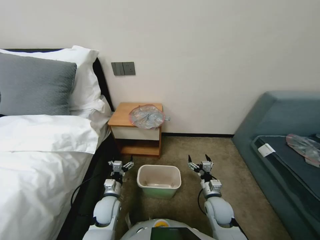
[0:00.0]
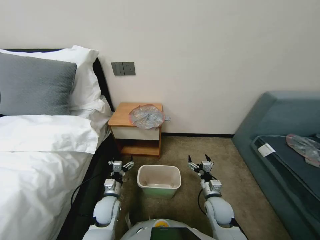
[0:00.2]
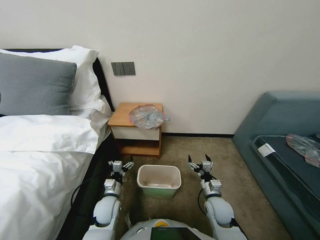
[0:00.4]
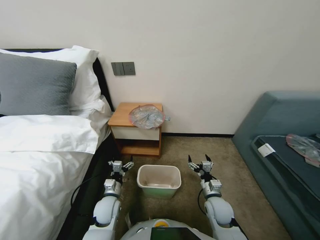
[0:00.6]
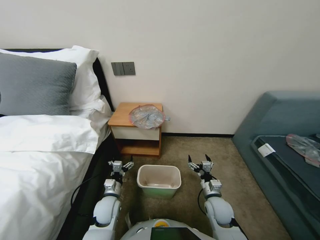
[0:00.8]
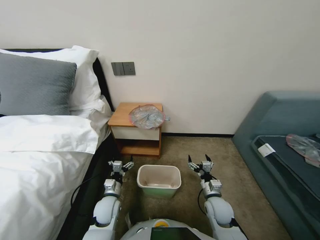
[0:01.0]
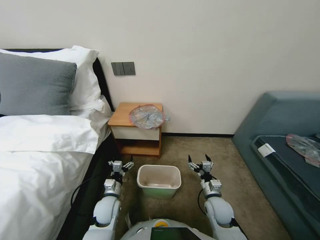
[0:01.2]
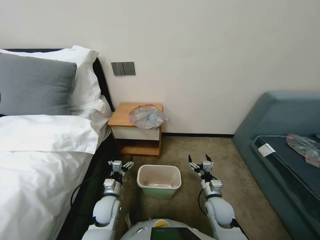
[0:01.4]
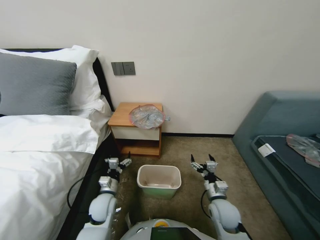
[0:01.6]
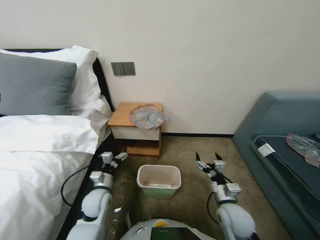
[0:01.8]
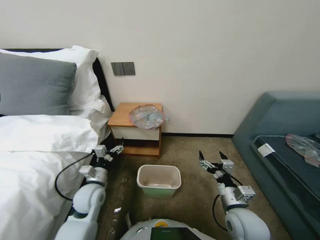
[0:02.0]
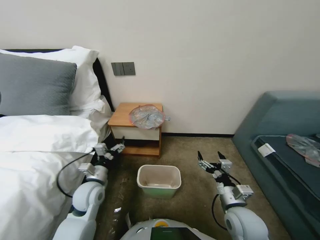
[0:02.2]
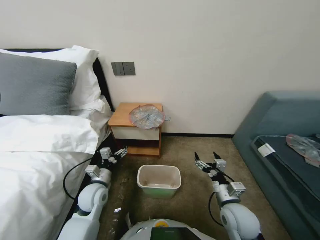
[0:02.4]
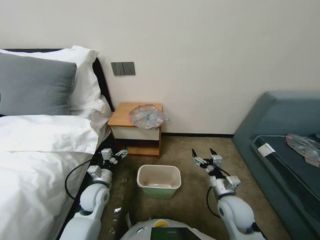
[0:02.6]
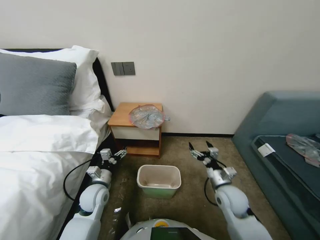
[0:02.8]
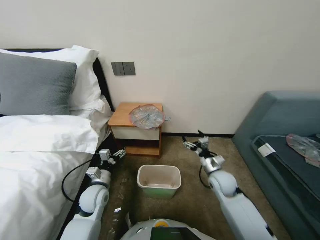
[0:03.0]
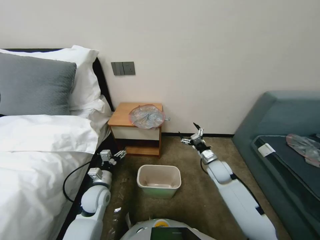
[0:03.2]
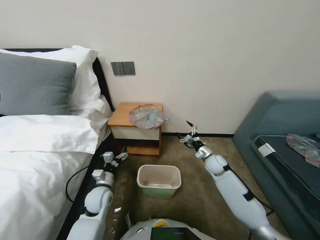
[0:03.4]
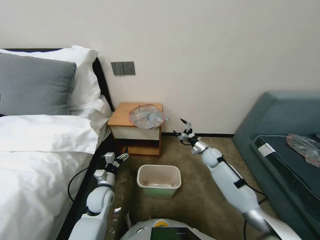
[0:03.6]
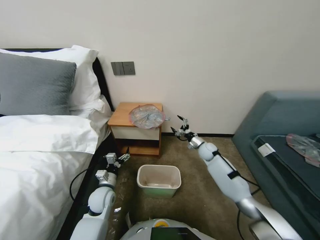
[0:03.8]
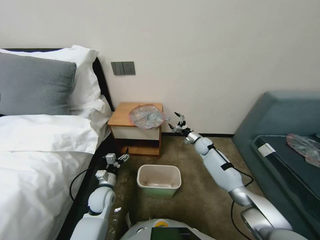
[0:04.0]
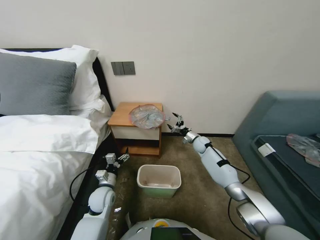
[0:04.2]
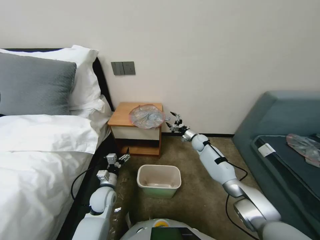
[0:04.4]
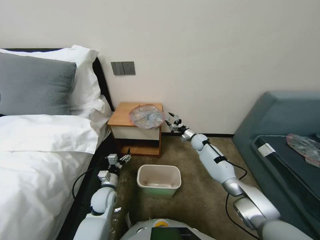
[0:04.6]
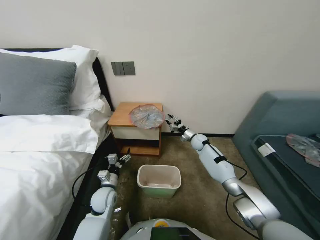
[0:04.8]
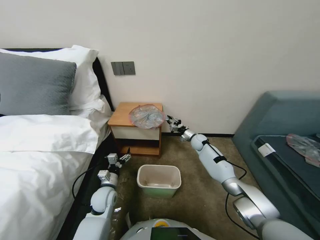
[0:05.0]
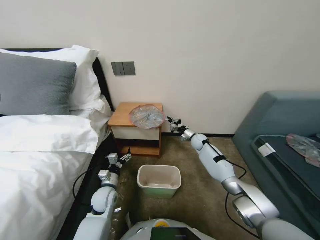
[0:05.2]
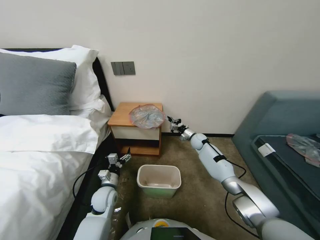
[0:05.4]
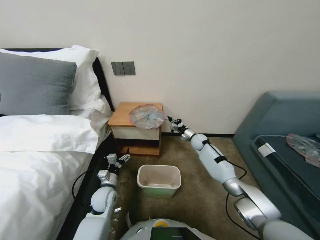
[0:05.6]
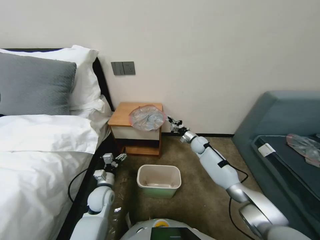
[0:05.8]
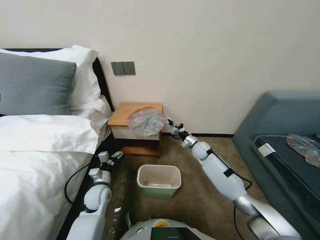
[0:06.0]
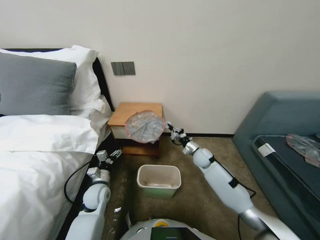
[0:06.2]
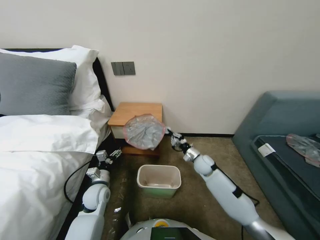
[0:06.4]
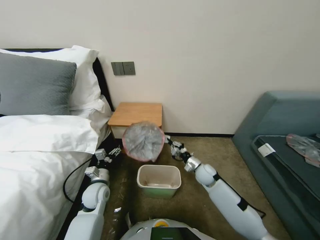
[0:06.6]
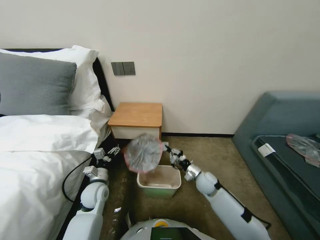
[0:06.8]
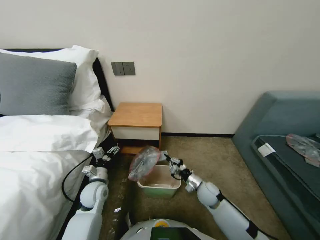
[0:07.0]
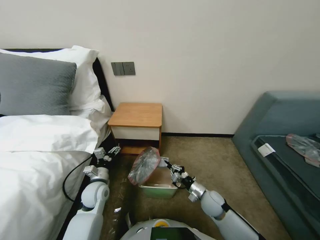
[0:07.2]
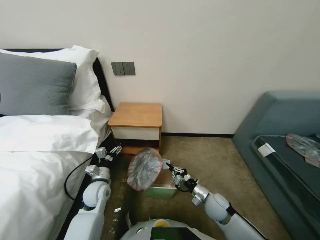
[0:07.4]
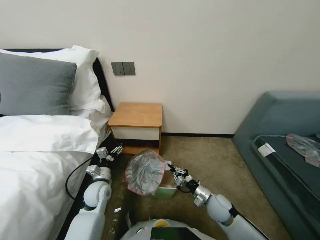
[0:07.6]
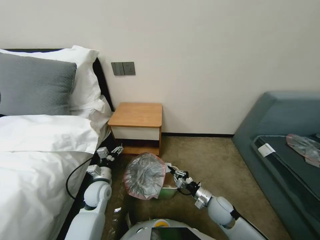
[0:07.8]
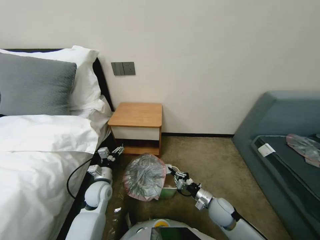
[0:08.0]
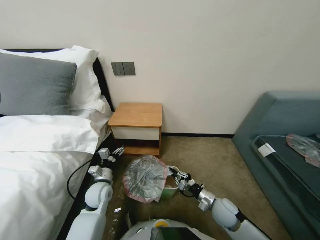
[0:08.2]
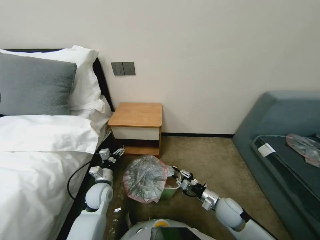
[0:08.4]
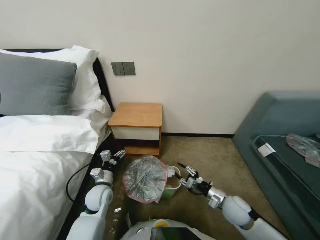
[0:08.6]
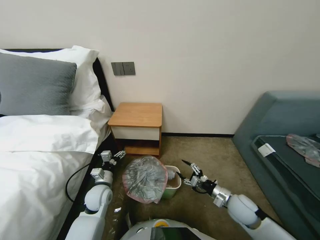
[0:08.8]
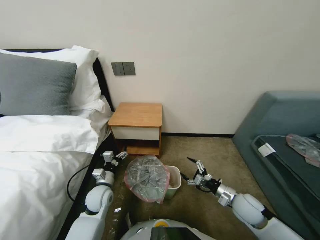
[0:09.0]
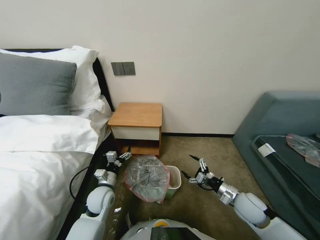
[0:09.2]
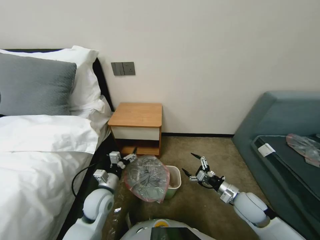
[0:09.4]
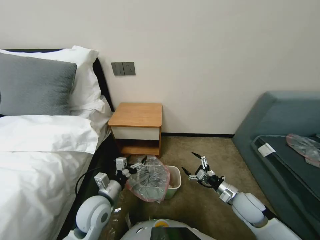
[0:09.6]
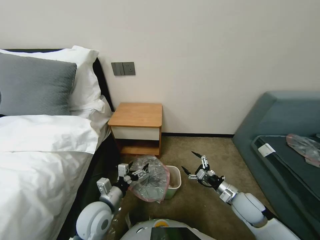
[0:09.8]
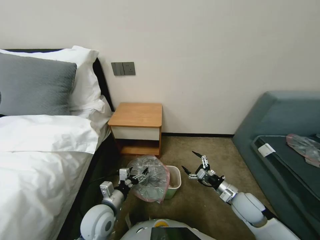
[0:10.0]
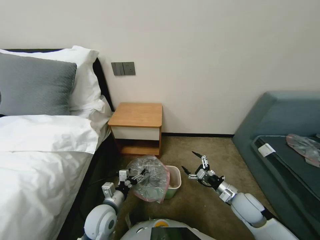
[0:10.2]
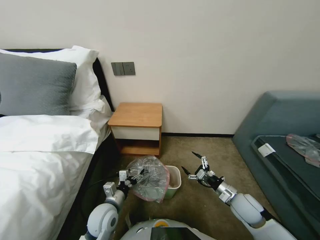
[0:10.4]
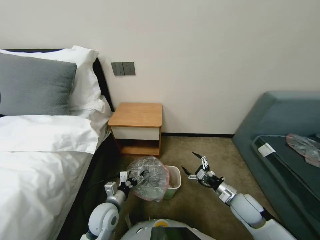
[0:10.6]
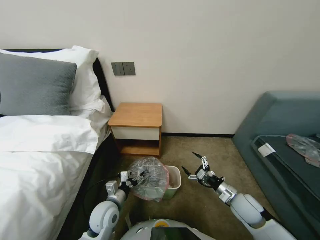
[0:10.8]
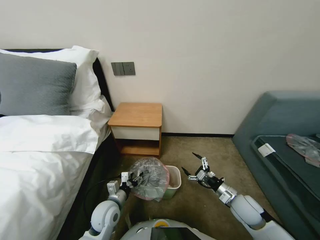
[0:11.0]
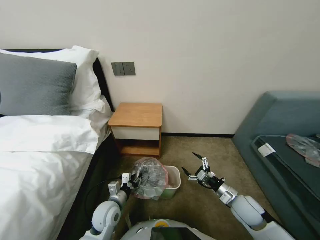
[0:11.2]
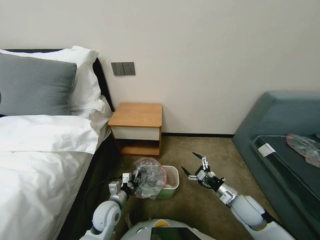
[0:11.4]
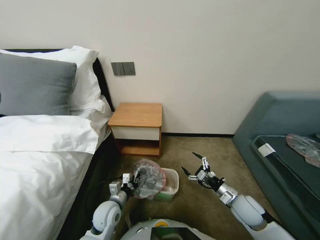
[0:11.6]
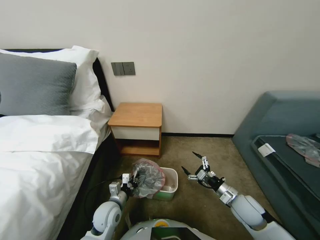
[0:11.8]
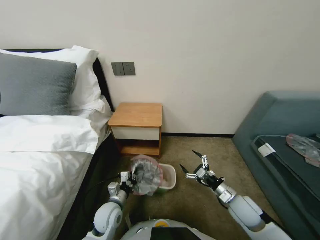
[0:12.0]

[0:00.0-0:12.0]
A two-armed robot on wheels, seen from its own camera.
Task of the whole recording: Pick up the garbage bag from the table and place it over the trash can.
0:01.6 to 0:03.0: The right gripper goes roughly 10 cm upward and forward, while the left gripper heads upward, covering roughly 5 cm.
0:03.0 to 0:04.4: The right gripper is displaced forward by roughly 30 cm.
0:04.4 to 0:06.0: The right gripper closes.
0:06.0 to 0:07.6: The right gripper travels backward by about 30 cm.
0:07.6 to 0:09.0: The right gripper goes some 10 cm to the right and upward, and opens its fingers.
0:09.0 to 0:10.4: The left gripper heads backward, covering approximately 10 cm.
0:10.4 to 0:12.0: The left gripper closes up.

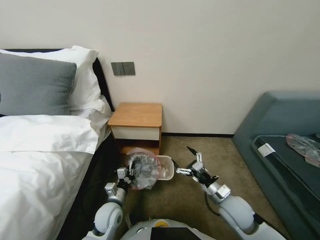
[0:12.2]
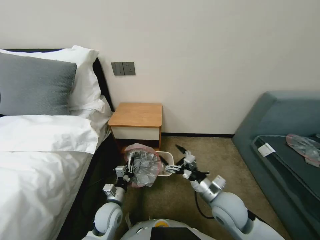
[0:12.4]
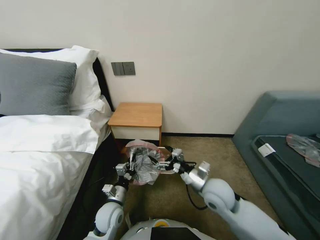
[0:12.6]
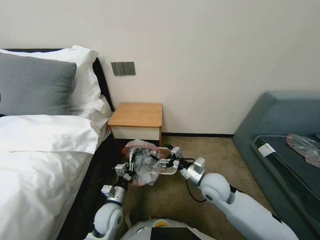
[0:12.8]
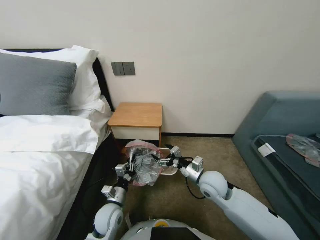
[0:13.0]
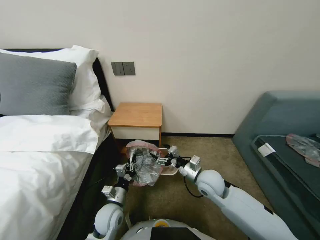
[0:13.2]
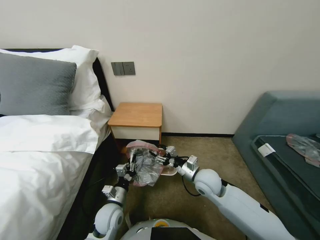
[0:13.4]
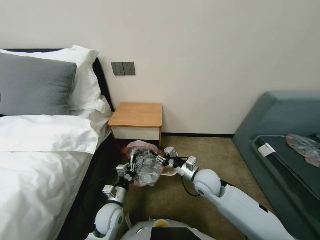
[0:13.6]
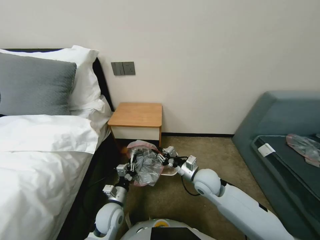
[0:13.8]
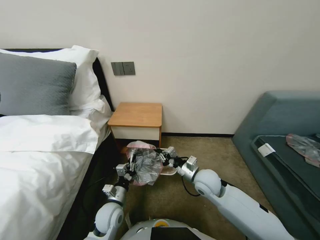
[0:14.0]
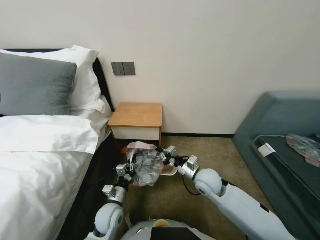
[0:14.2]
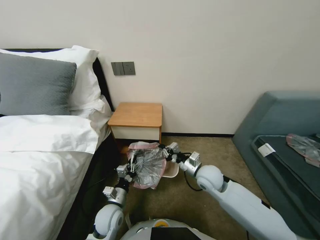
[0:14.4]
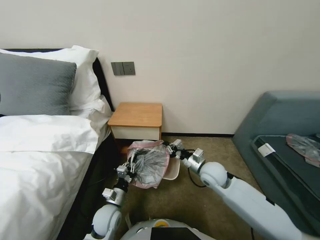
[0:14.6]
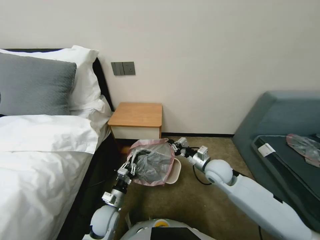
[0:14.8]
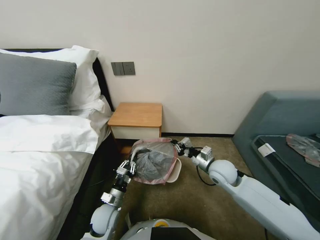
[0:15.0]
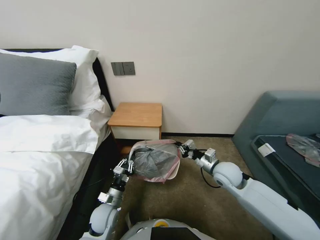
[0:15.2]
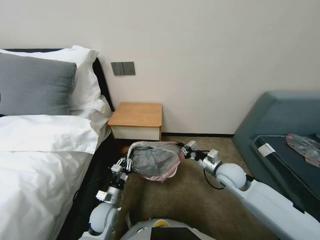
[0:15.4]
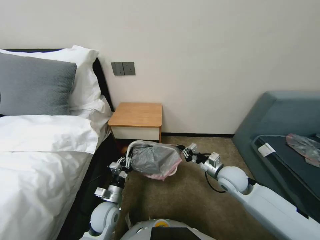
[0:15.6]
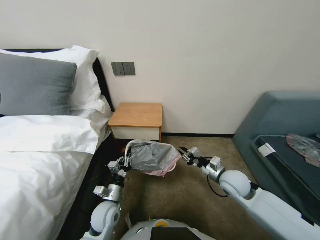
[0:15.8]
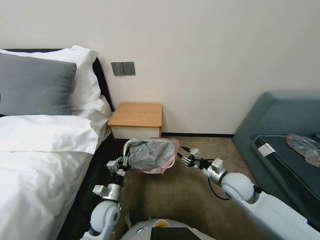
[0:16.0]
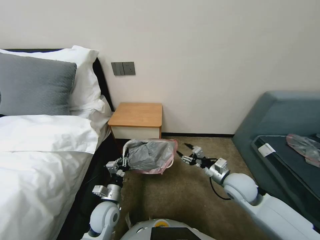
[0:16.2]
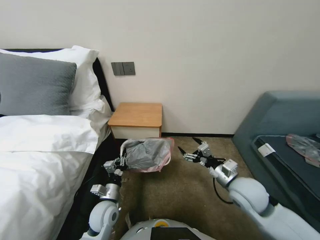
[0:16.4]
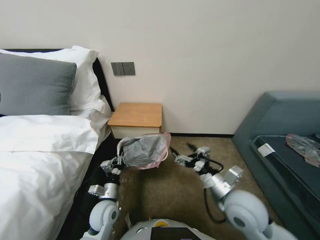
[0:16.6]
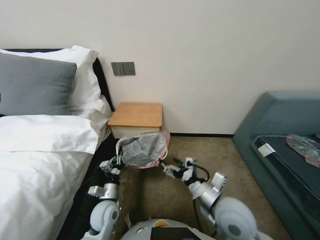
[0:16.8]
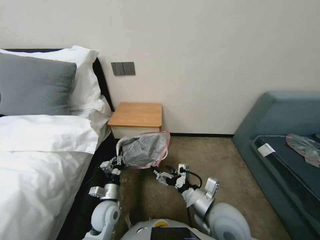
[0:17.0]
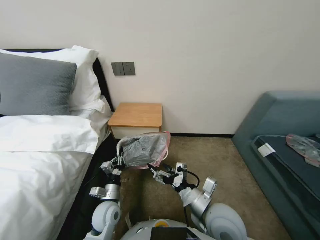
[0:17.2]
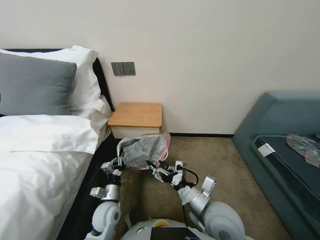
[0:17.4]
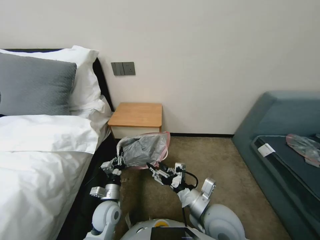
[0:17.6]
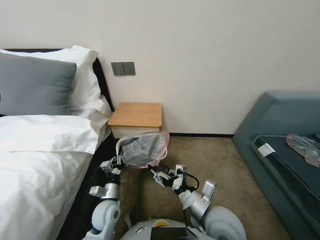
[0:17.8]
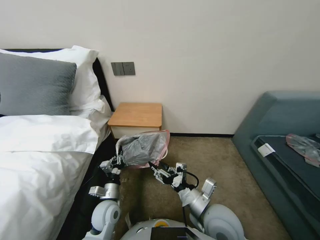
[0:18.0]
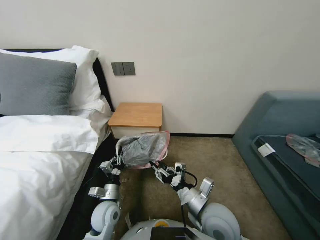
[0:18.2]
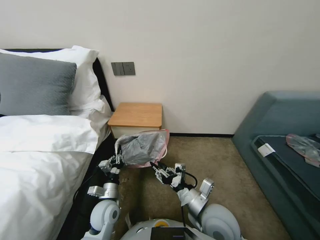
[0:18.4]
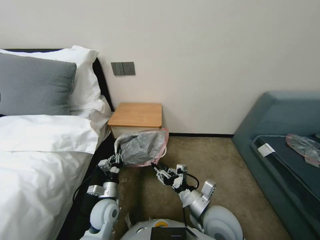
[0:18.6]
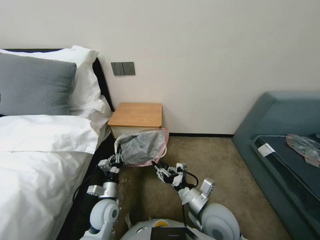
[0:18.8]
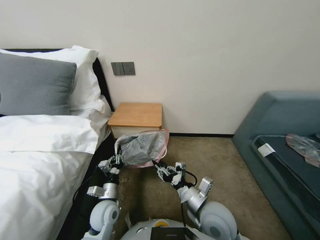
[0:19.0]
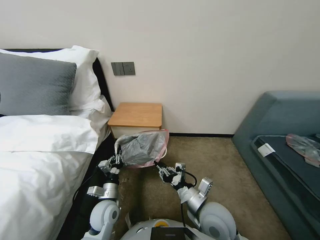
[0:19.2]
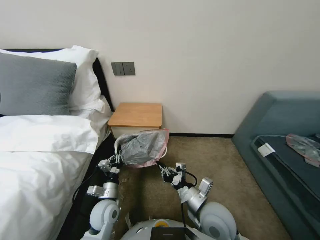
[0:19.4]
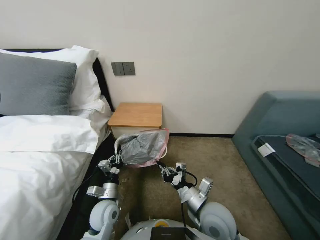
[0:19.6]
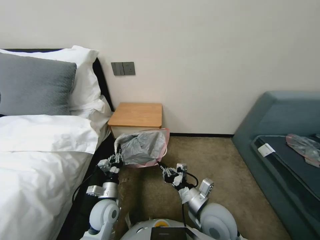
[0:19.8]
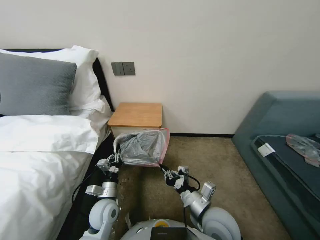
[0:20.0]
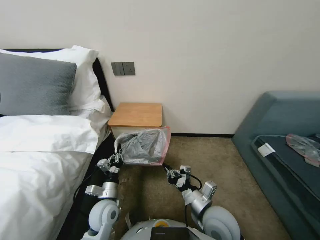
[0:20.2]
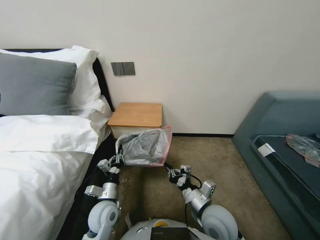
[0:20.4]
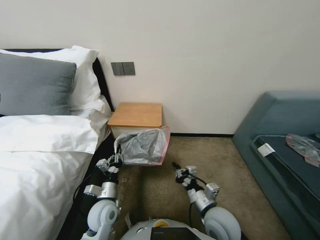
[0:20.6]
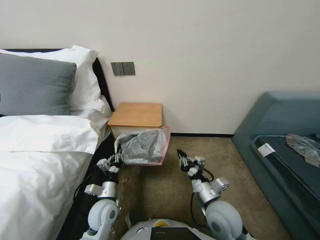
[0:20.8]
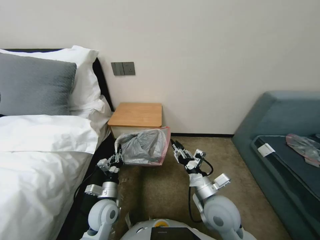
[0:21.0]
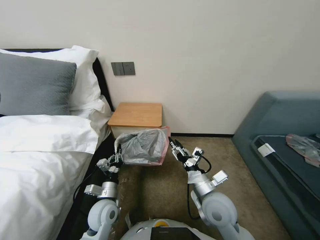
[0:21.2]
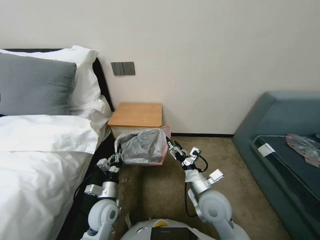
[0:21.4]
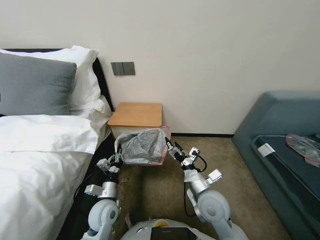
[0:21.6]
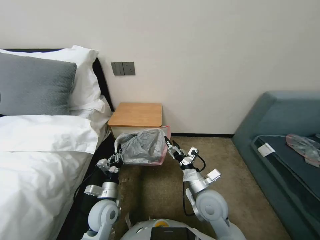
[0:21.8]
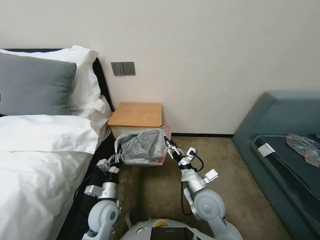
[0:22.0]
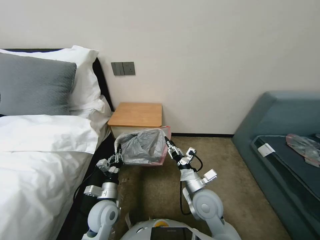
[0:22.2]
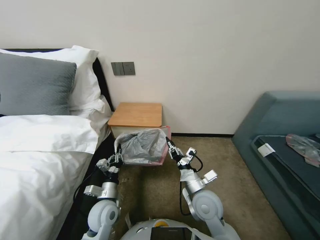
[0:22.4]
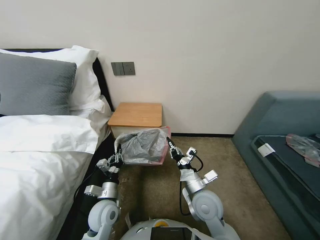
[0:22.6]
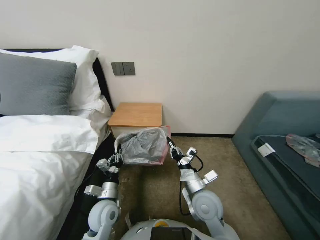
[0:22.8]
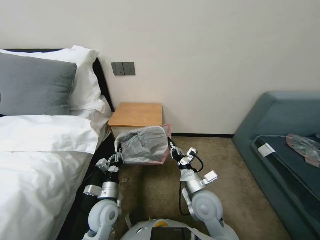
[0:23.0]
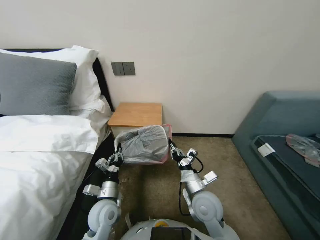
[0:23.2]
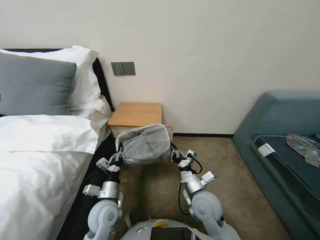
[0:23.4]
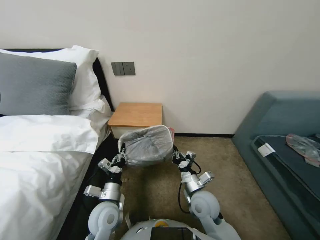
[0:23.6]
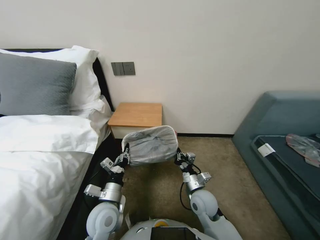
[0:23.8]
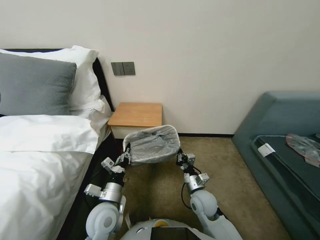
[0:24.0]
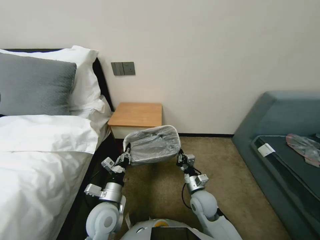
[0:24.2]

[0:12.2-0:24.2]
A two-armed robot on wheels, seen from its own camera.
Task of the whole recording: Pick up the garbage bag from the table and place it over the trash can.
0:12.2 to 0:13.8: The right gripper travels to the left, forward and upward by roughly 15 cm, and closes up.
0:13.8 to 0:15.2: The right gripper heads to the right, covering about 10 cm.
0:15.2 to 0:16.6: The right gripper heads backward, covering about 10 cm, and opens its fingers.
0:16.6 to 0:18.2: The right gripper heads to the left and backward, covering roughly 10 cm.
0:18.2 to 0:19.8: The right gripper closes.
0:19.8 to 0:21.2: The right gripper opens its fingers.
0:21.2 to 0:22.6: The right gripper closes up.
0:22.6 to 0:24.2: The right gripper goes about 10 cm downward. Meanwhile the left gripper shifts by approximately 5 cm.
